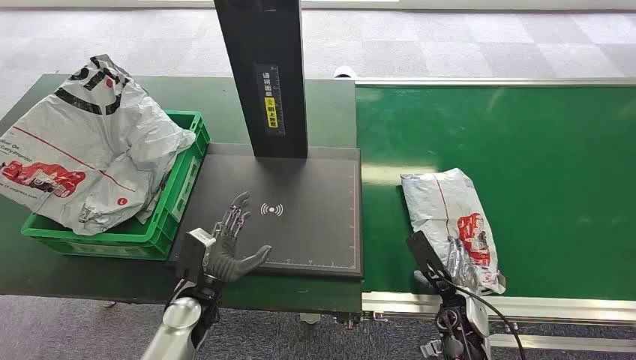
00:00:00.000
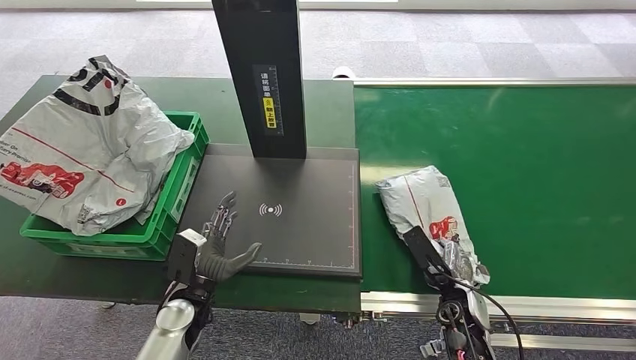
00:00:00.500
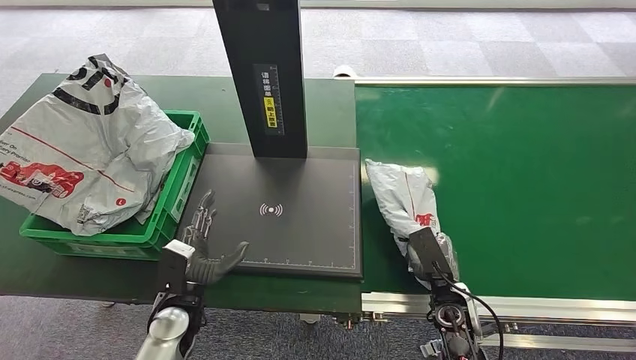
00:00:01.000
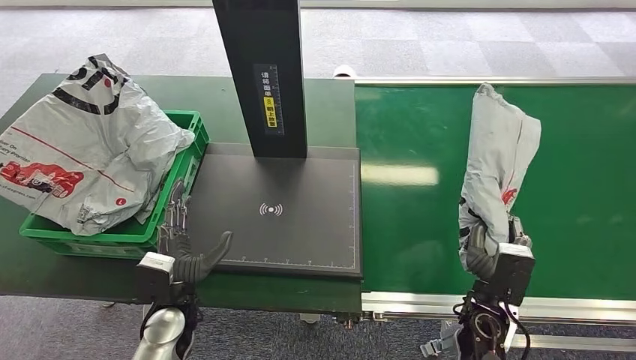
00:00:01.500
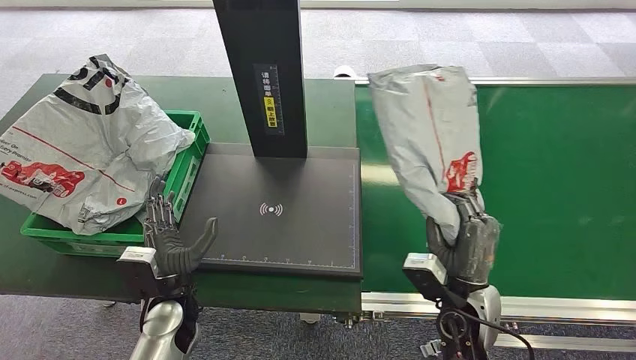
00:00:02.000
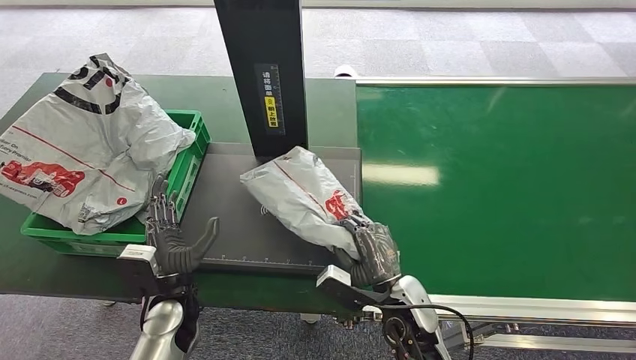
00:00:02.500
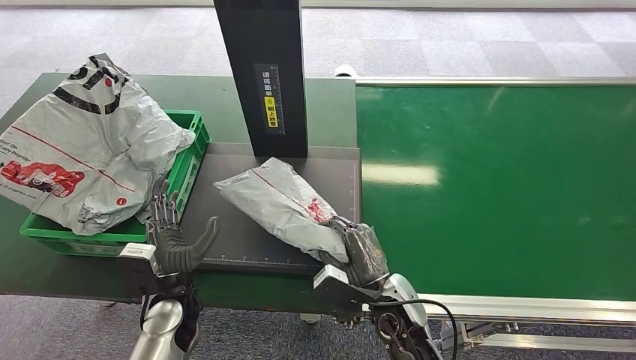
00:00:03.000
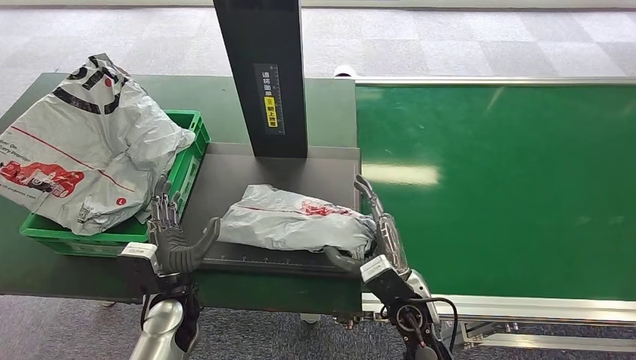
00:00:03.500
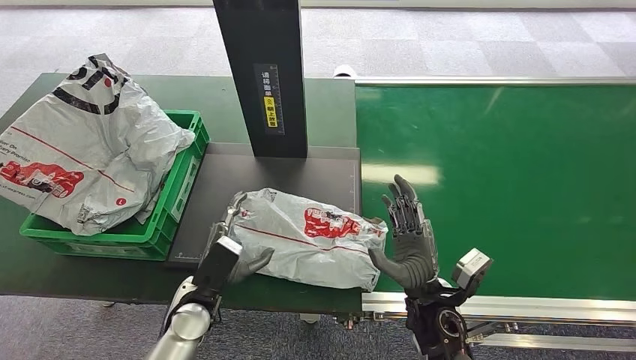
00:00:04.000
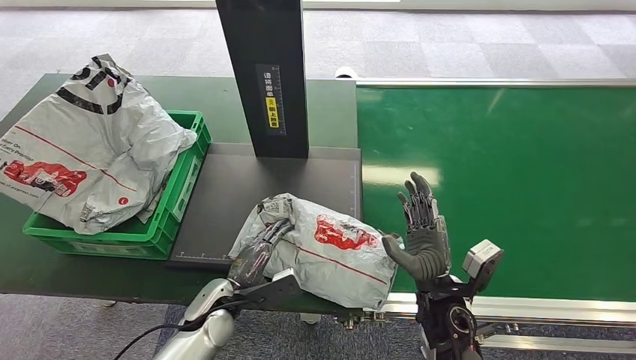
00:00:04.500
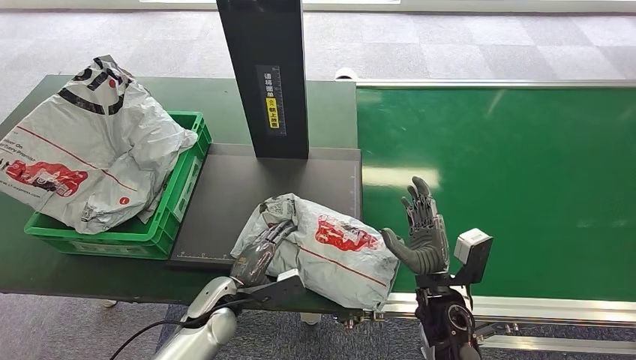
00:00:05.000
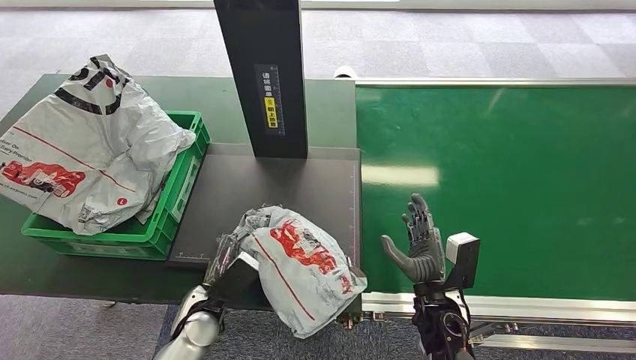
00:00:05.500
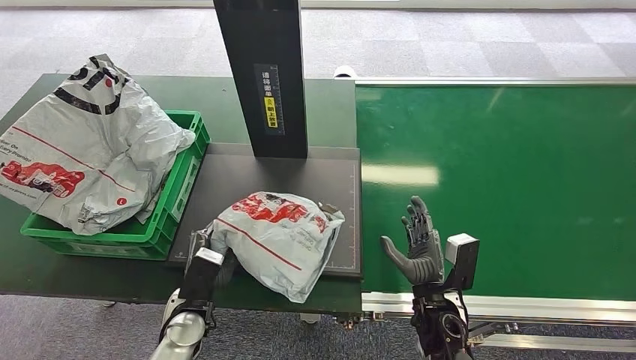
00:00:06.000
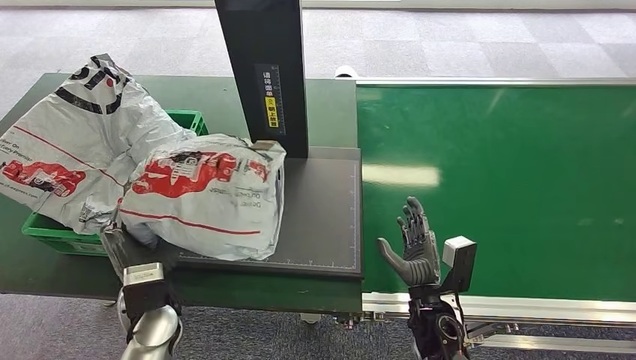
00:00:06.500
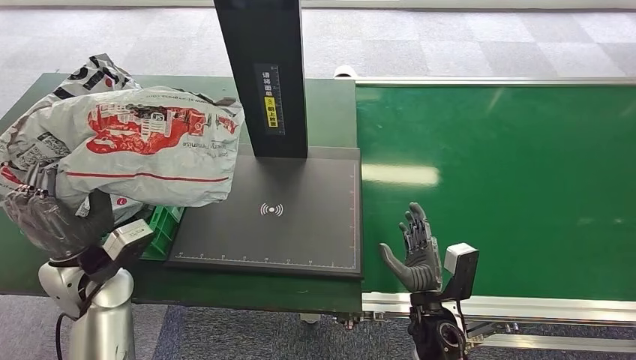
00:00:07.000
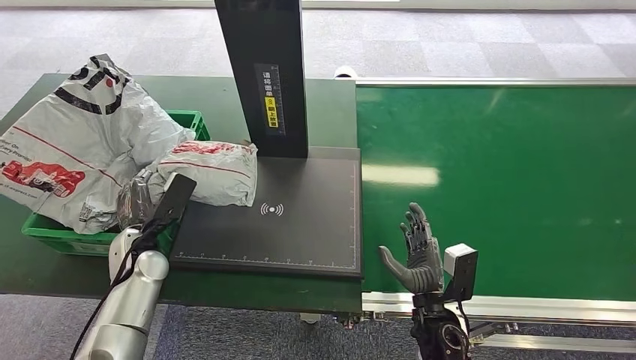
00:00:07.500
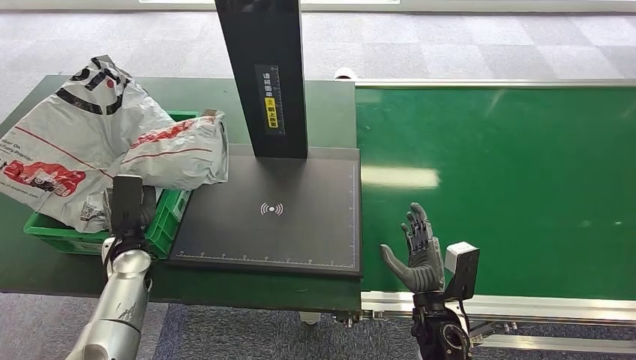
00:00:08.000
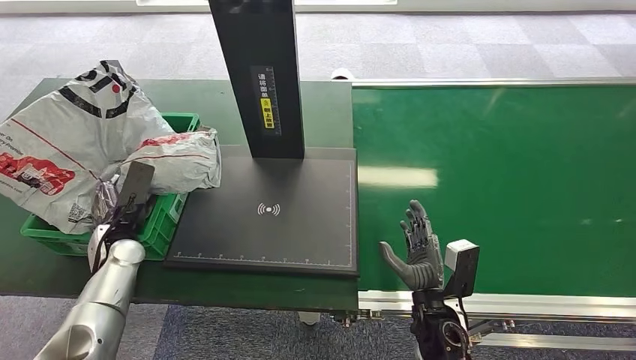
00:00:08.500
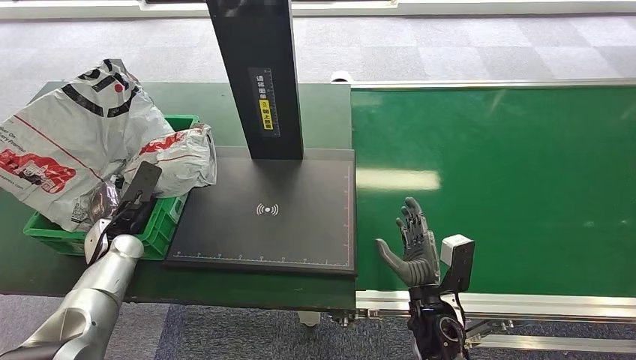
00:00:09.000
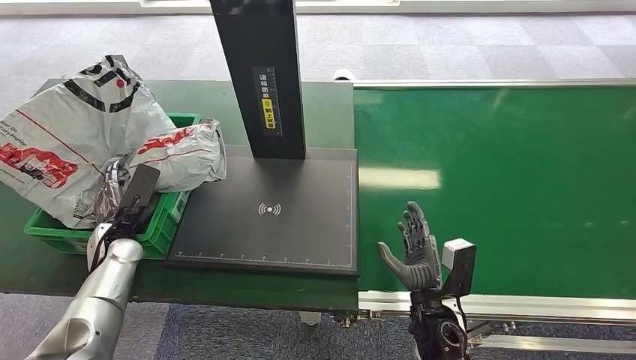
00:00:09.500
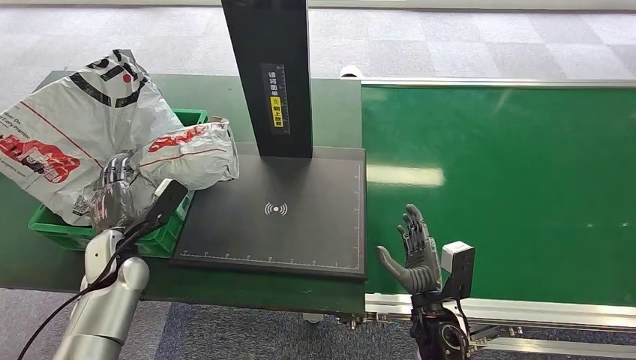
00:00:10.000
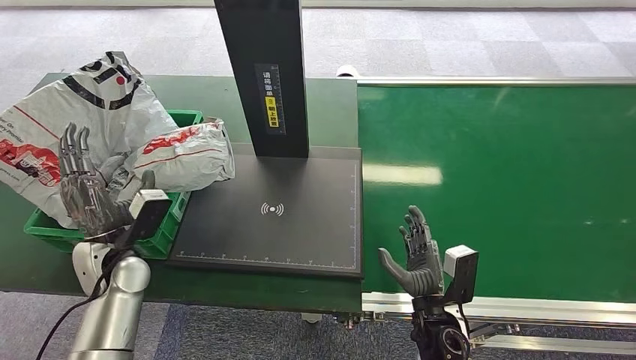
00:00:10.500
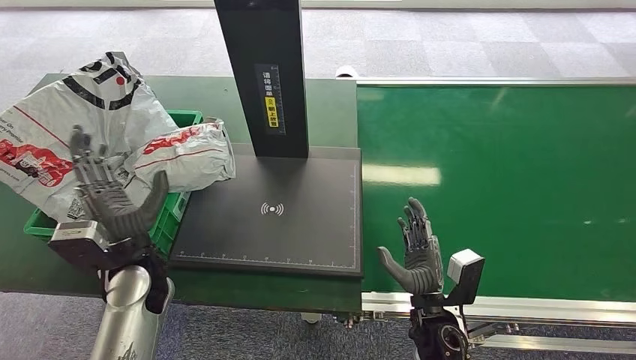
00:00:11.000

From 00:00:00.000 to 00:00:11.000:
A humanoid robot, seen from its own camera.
Task of the whole recording: Weigh the package on the weighing device and place it in the left basket.
Step, from 00:00:00.000 to 00:00:01.000: Pick up the package from the conveyor belt.
Step, from 00:00:01.500 to 00:00:04.000: Place the package onto the inbound machine.
Step, from 00:00:04.500 to 00:00:06.500: Pick up the package from the inbound machine.
Step, from 00:00:07.000 to 00:00:11.000: Place the package into the parcel locker.
From 00:00:02.000 to 00:00:03.500: The right hand goes about 10 cm to the left.
From 00:00:03.500 to 00:00:05.500: The left hand ends up some 5 cm from where it was; the right hand moves to the right, about 5 cm.
From 00:00:05.500 to 00:00:07.500: The left hand goes roughly 15 cm to the left, forward and upward.

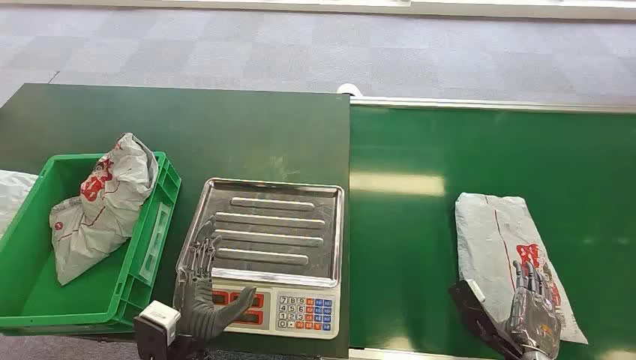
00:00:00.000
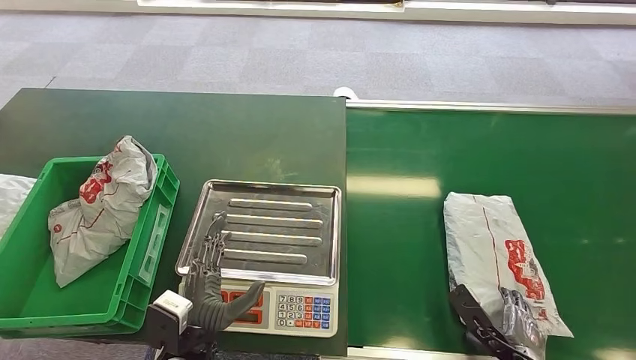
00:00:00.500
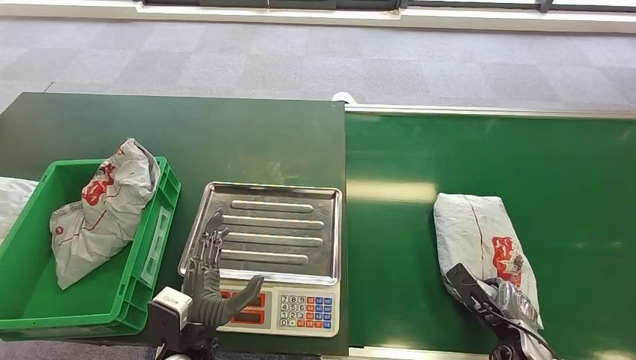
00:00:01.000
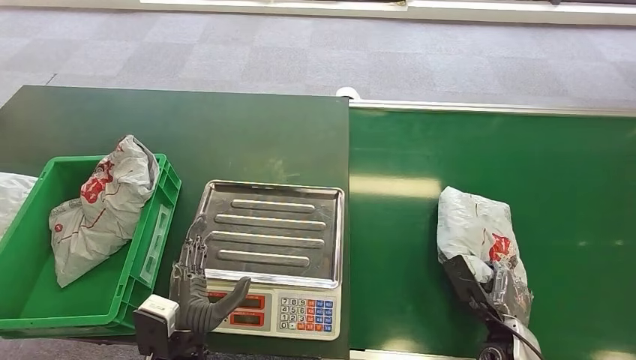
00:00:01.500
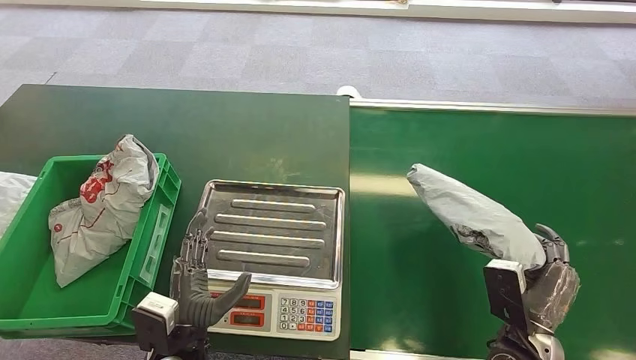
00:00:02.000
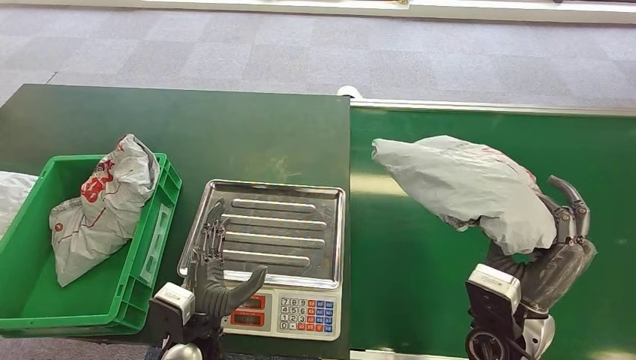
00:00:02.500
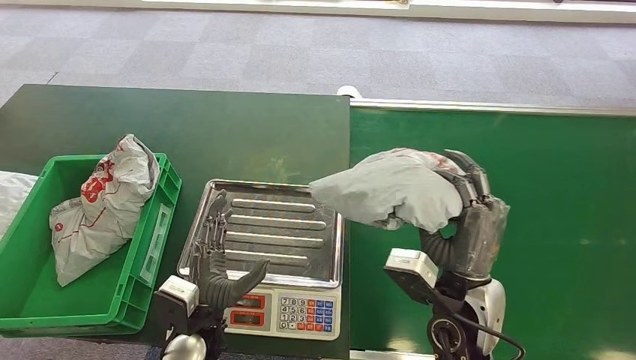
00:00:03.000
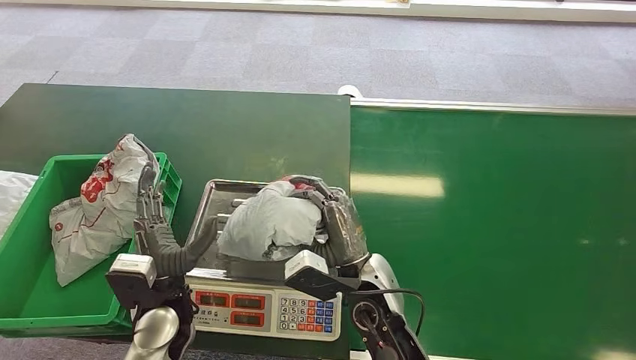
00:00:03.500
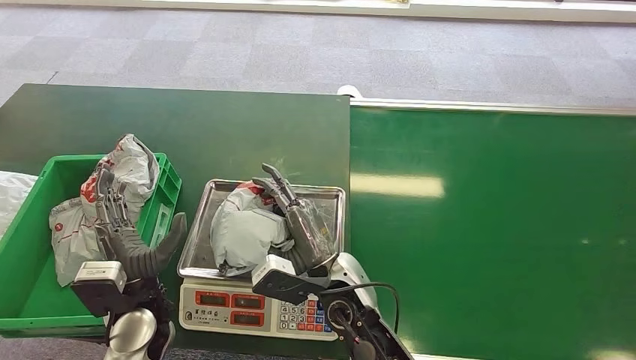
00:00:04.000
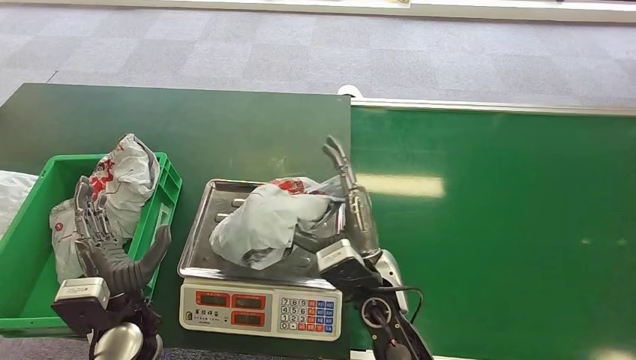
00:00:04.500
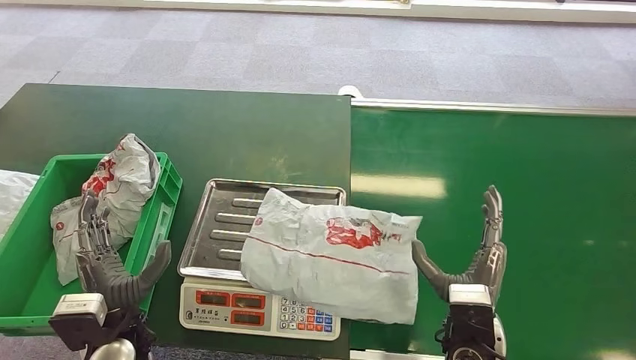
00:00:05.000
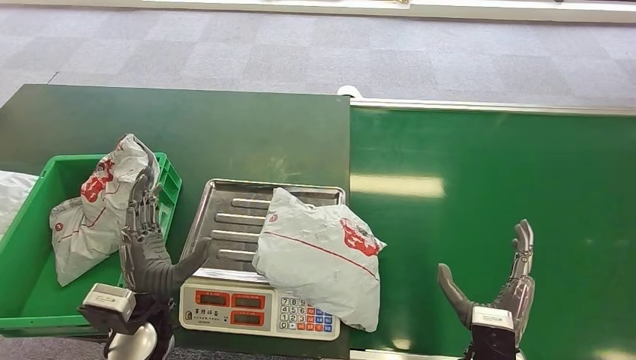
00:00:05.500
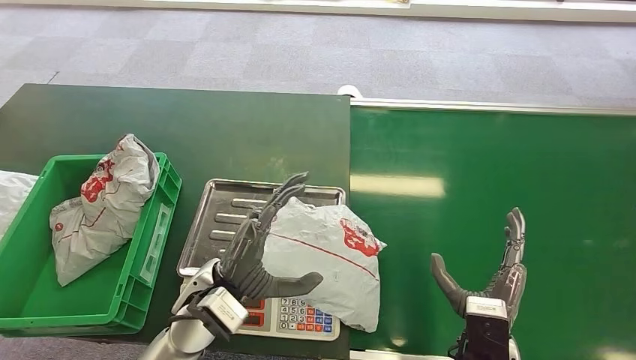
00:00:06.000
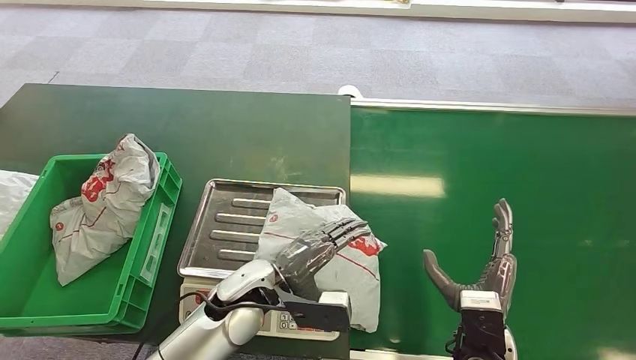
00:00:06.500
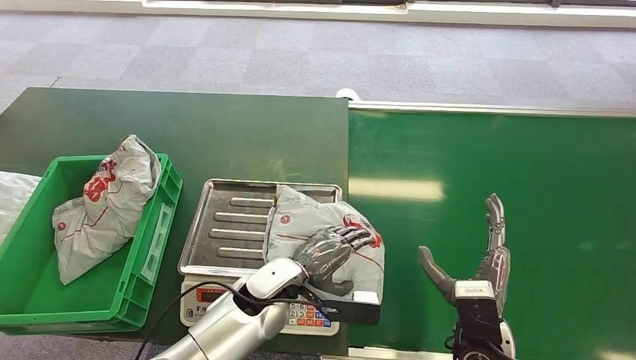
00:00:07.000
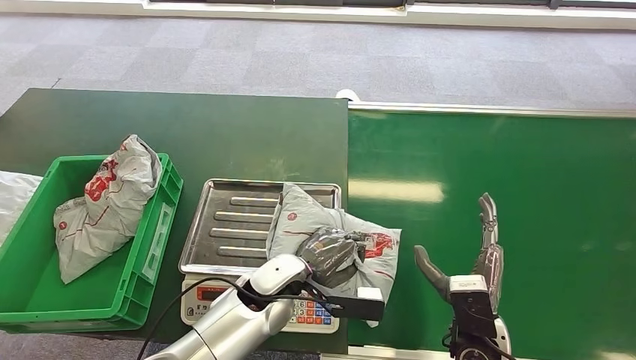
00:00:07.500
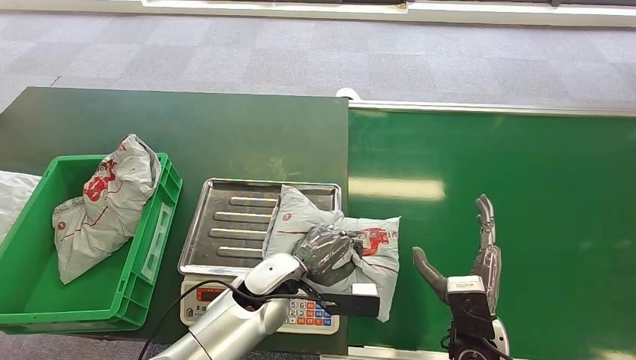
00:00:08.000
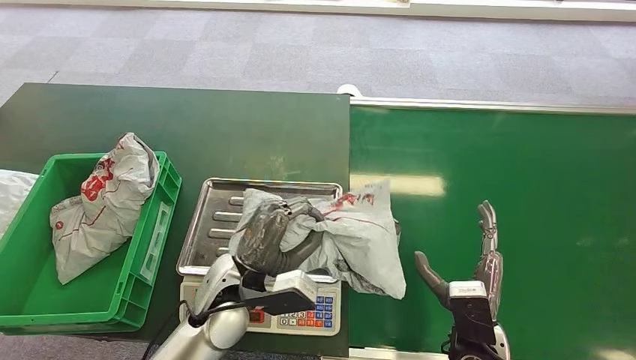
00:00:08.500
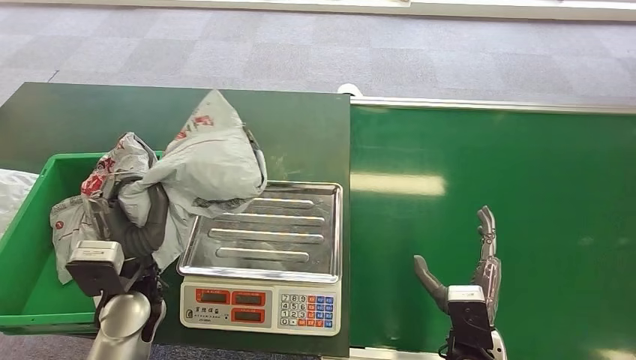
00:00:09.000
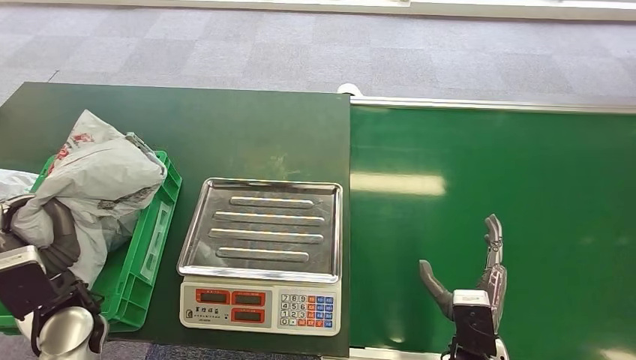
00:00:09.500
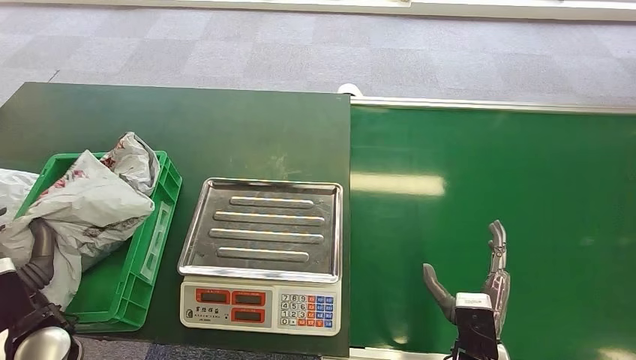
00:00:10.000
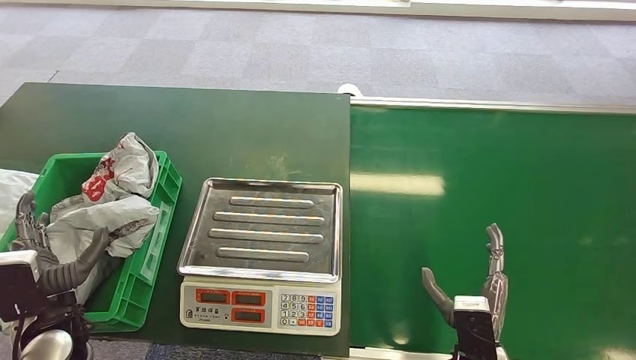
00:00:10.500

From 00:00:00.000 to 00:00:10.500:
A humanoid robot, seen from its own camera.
Task of the whole recording: Weigh the package on the weighing device and place it in the left basket.
Step, from 00:00:00.000 to 00:00:02.000: Pick up the package from the conveyor belt.
Step, from 00:00:03.500 to 00:00:05.500: Place the package onto the inbound machine.
Step, from 00:00:06.500 to 00:00:08.500: Pick up the package from the inbound machine.
Step, from 00:00:09.500 to 00:00:10.500: Place the package into the parcel locker.
From 00:00:04.000 to 00:00:06.500: Both hands move to the right, approximately 15 cm.
From 00:00:08.500 to 00:00:10.500: The left hand is displaced to the left by some 25 cm.
